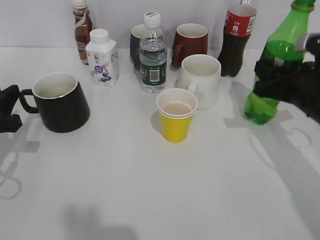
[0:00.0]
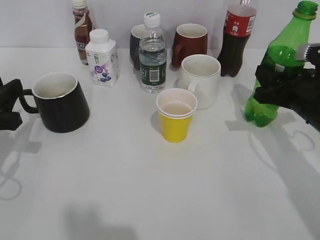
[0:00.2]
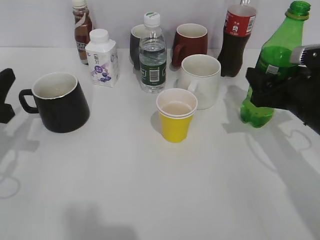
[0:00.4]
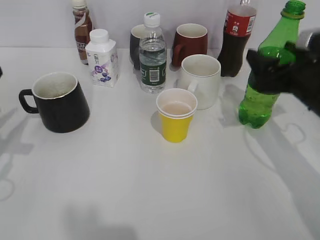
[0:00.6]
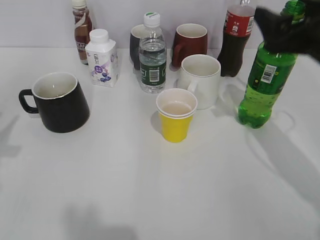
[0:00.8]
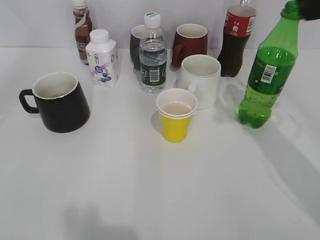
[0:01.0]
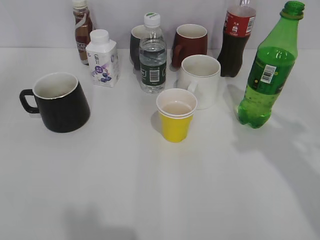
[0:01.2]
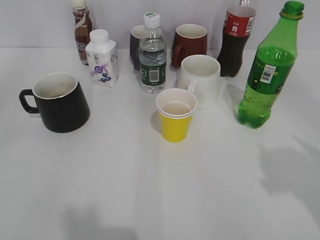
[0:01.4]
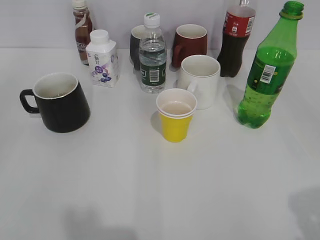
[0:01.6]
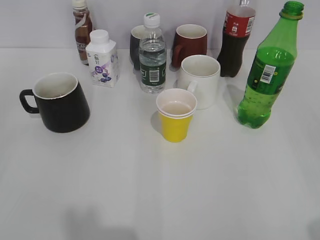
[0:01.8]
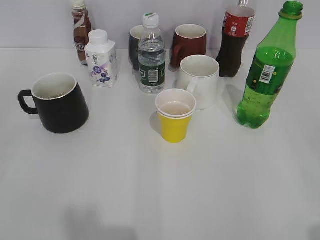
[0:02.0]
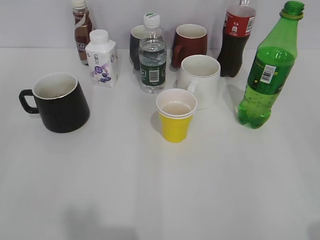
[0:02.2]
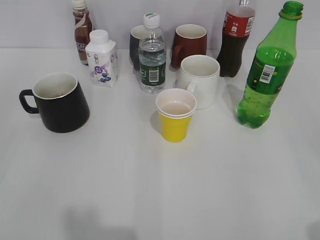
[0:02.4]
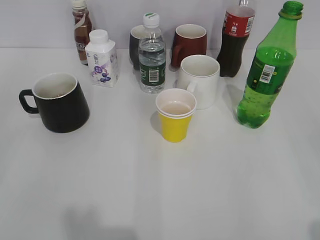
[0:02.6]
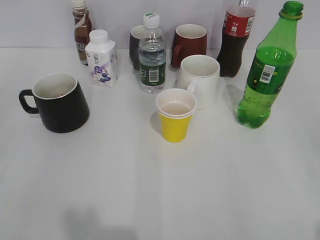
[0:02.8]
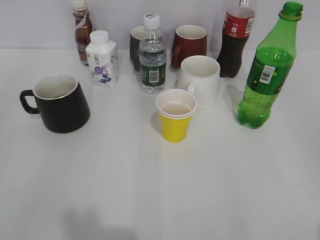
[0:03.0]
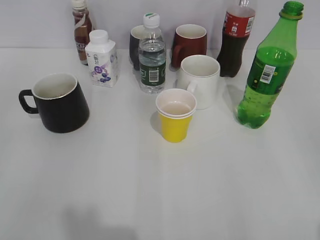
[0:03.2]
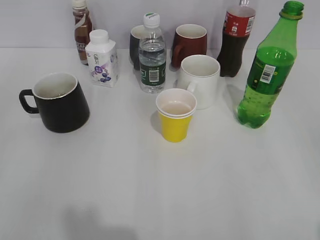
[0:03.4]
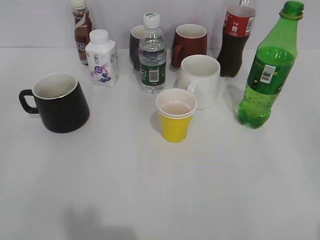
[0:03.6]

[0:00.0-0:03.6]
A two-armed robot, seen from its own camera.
0:00.0 to 0:01.8: Both grippers move backward and upward, some 30 cm. The right gripper opens its fingers.
